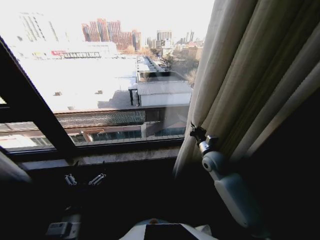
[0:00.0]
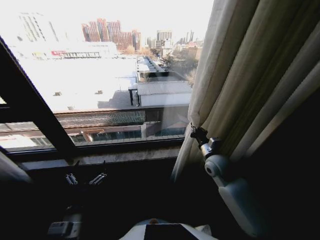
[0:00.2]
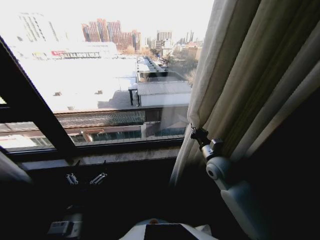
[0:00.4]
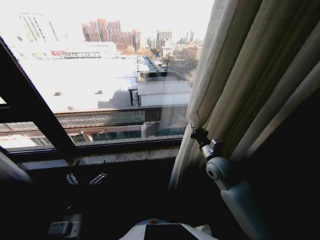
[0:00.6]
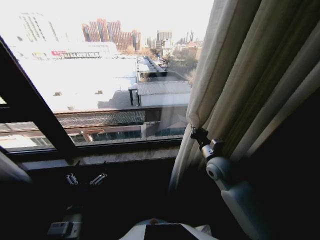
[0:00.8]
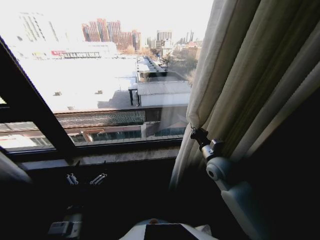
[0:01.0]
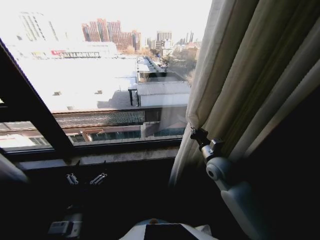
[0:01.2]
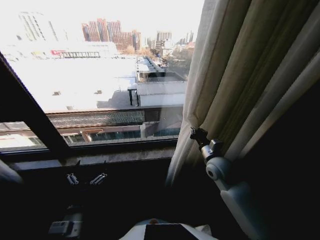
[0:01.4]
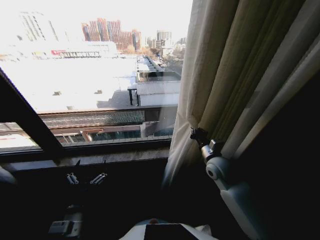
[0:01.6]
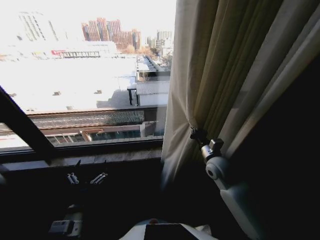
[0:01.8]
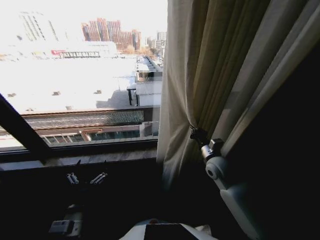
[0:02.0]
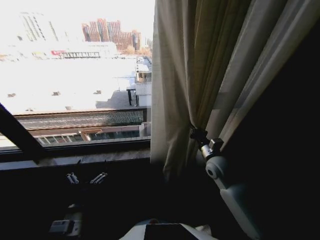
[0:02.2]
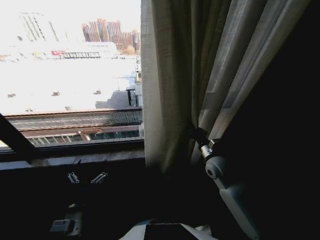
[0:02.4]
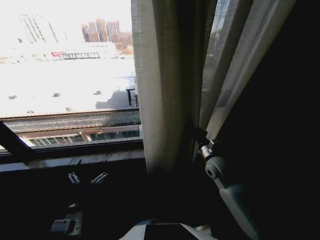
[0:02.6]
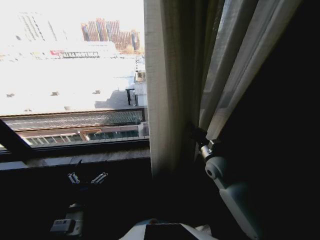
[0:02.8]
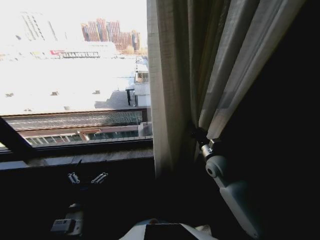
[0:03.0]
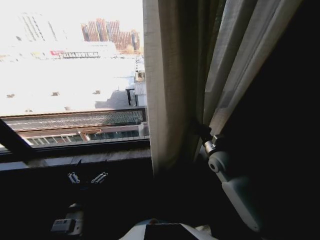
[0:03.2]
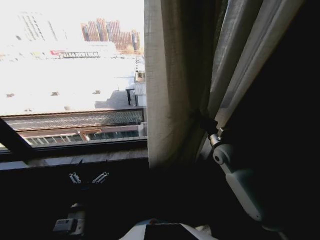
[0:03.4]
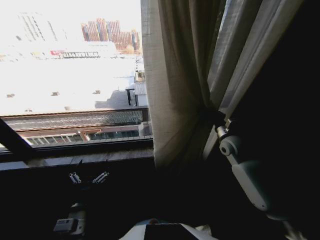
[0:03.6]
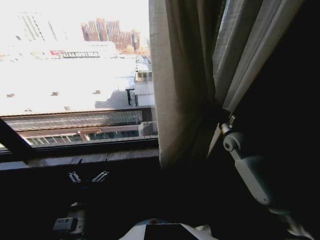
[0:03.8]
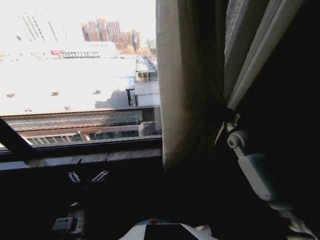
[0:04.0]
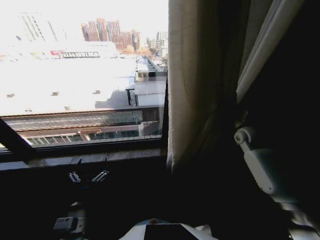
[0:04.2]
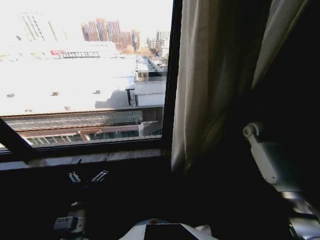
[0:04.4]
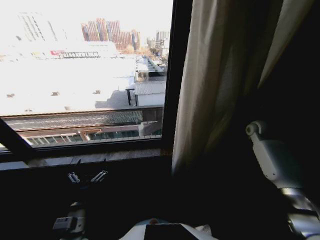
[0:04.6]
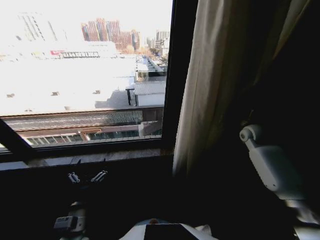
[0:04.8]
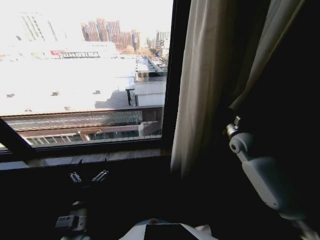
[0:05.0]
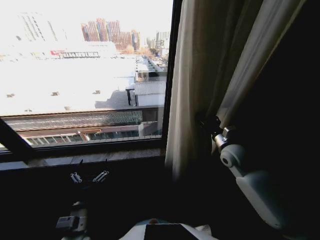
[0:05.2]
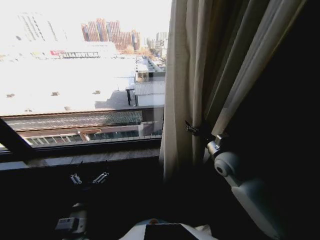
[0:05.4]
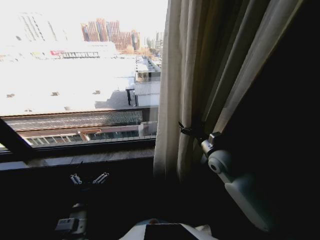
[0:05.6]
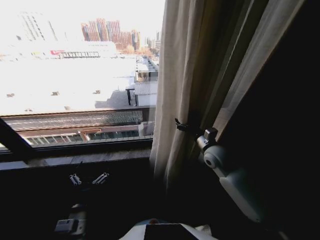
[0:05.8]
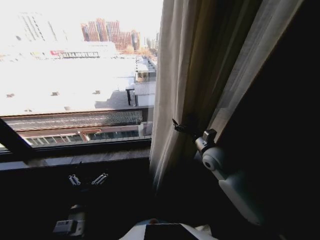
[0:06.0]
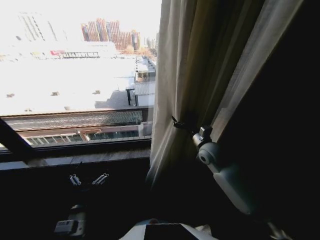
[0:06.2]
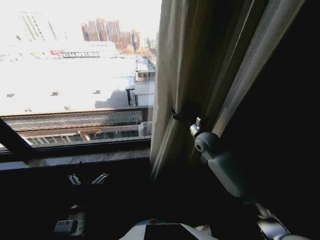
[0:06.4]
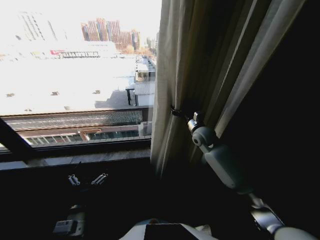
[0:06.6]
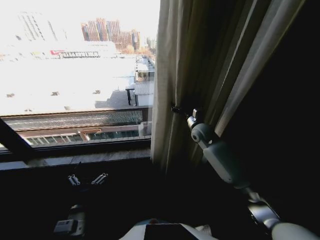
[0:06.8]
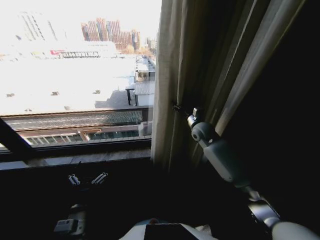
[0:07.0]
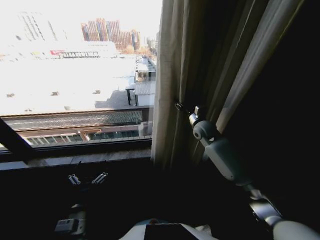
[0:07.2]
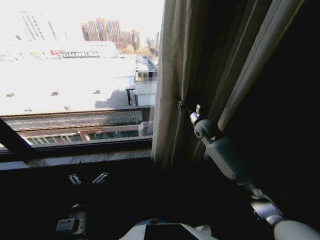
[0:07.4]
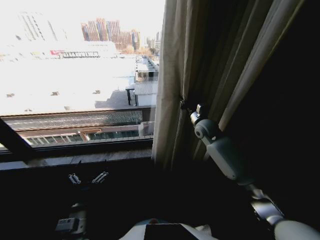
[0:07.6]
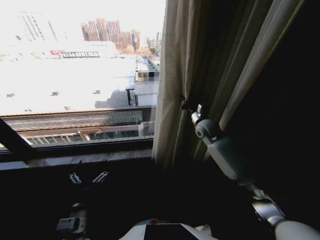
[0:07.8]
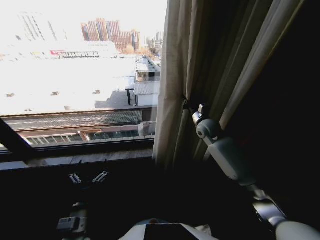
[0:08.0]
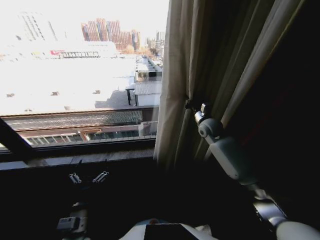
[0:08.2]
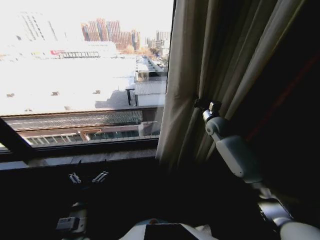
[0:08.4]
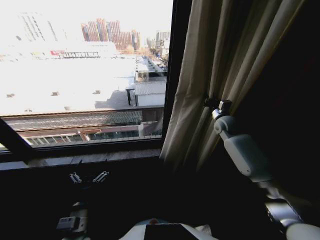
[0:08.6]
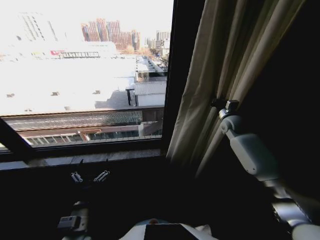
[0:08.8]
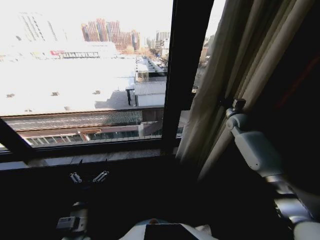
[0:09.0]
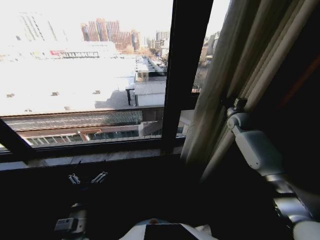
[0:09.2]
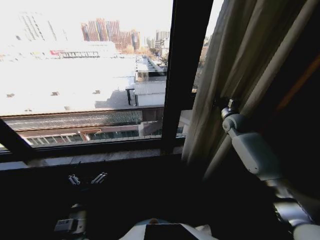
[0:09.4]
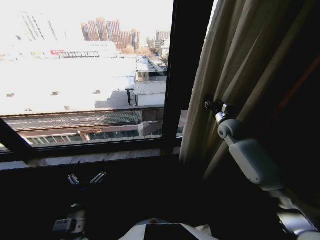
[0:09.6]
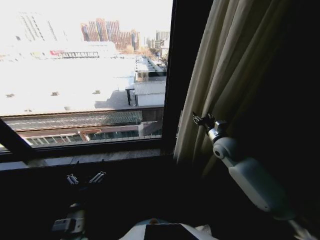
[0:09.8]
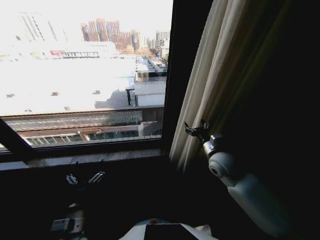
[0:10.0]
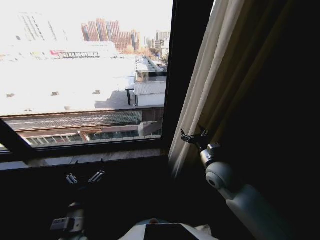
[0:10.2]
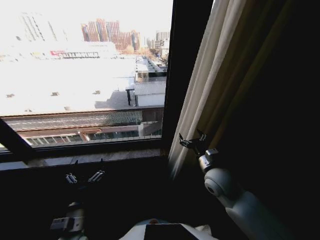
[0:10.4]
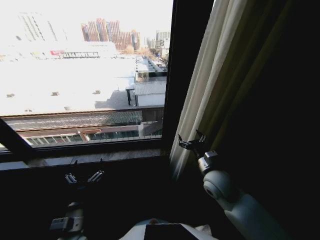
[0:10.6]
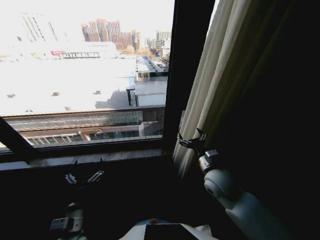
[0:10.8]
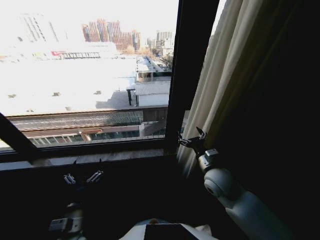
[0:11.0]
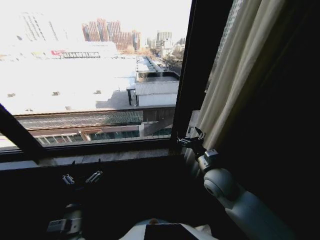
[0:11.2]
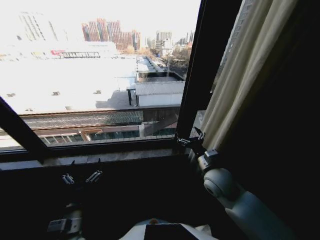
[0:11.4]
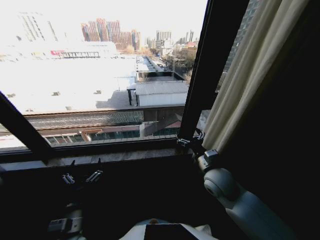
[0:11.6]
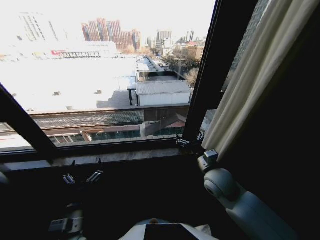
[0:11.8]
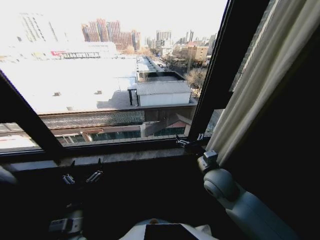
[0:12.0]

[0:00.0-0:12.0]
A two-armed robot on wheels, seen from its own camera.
Task of the whole recording: Open the curtains by pulling them apart, changing their state from closed to fully open.
0:03.0 to 0:04.4: The right gripper travels to the right and forward by roughly 25 cm.
0:04.4 to 0:06.0: The right gripper travels to the left and backward by about 25 cm, and opens.
0:06.0 to 0:07.6: The right gripper heads forward, covering about 15 cm, and closes its fingers.
0:07.6 to 0:09.0: The right gripper travels to the right by roughly 20 cm.
0:09.0 to 0:10.4: The right gripper moves backward and to the left, roughly 30 cm, and opens.

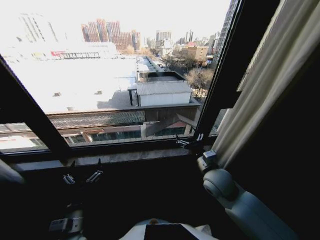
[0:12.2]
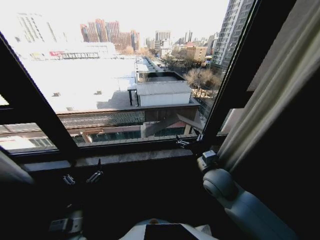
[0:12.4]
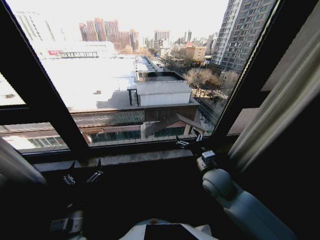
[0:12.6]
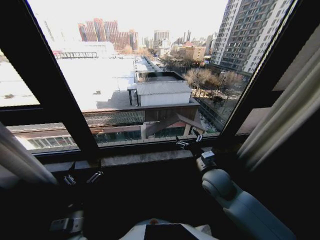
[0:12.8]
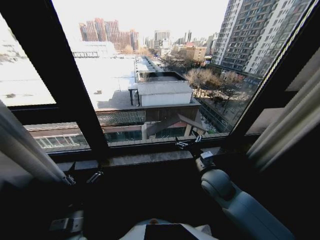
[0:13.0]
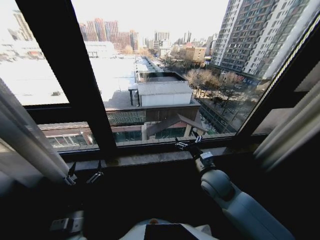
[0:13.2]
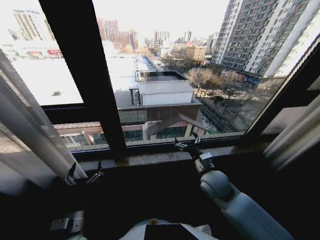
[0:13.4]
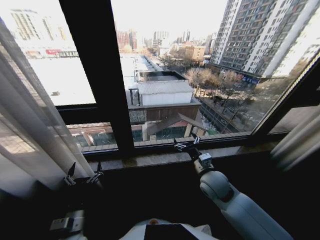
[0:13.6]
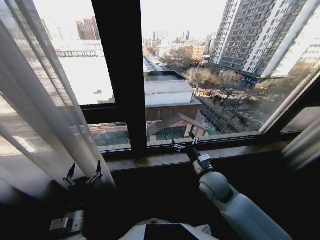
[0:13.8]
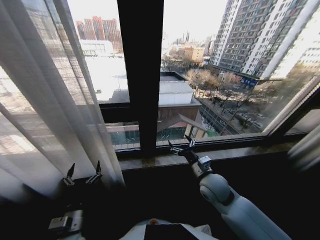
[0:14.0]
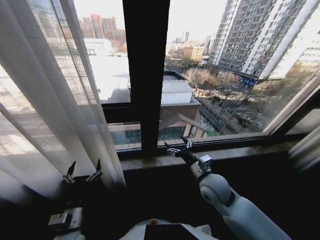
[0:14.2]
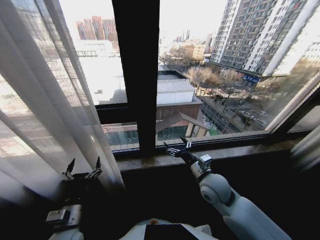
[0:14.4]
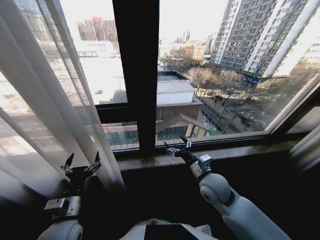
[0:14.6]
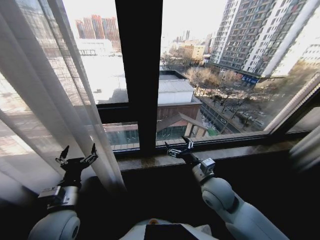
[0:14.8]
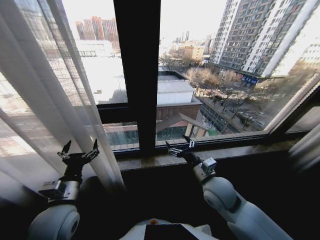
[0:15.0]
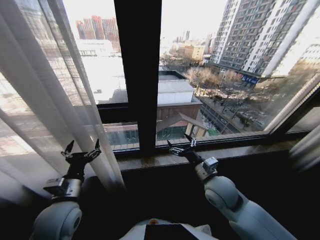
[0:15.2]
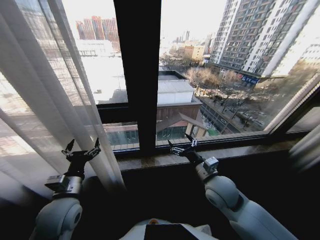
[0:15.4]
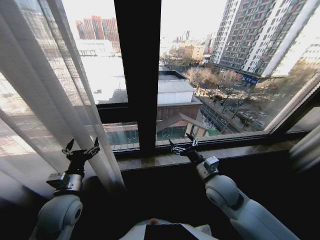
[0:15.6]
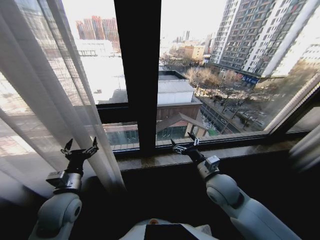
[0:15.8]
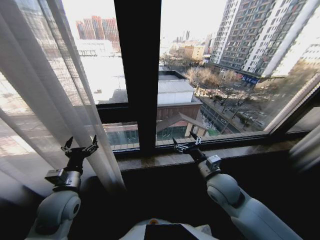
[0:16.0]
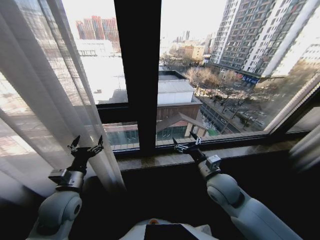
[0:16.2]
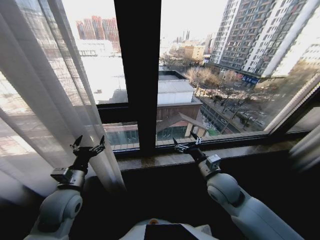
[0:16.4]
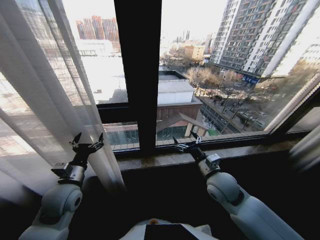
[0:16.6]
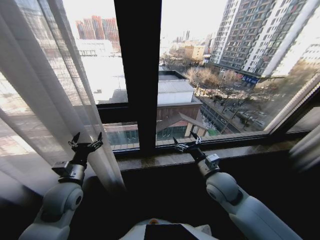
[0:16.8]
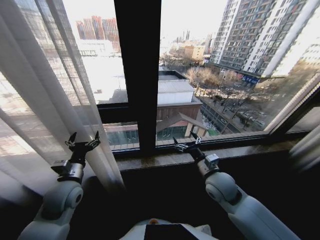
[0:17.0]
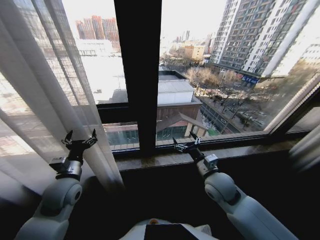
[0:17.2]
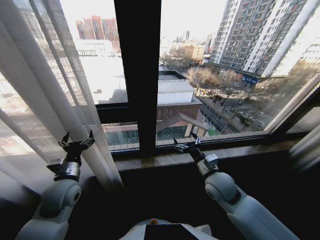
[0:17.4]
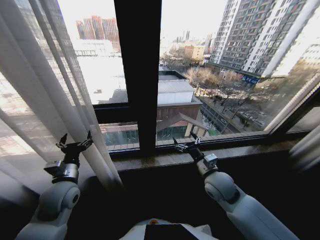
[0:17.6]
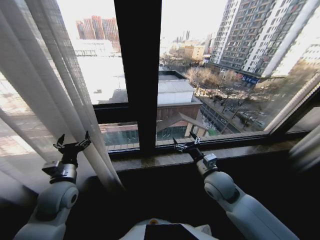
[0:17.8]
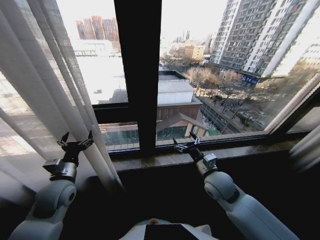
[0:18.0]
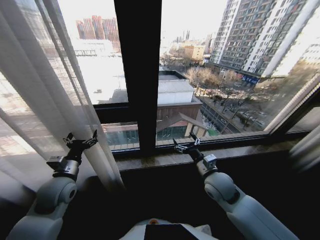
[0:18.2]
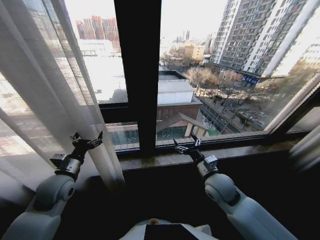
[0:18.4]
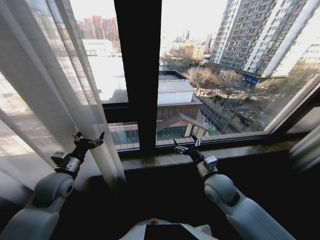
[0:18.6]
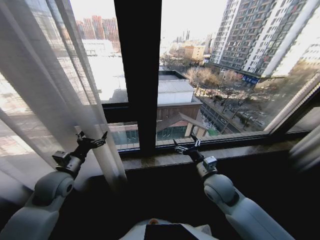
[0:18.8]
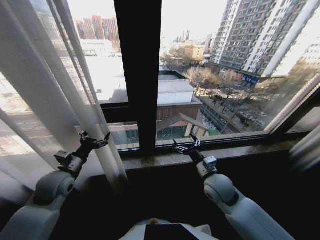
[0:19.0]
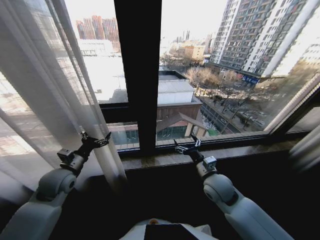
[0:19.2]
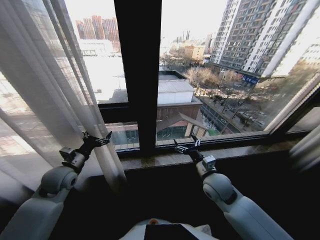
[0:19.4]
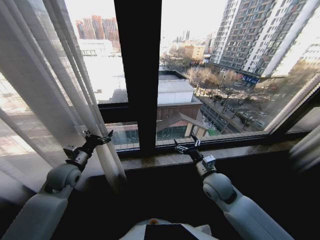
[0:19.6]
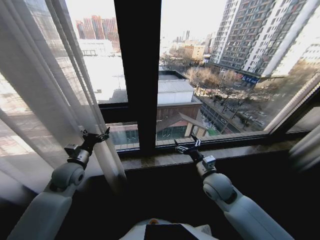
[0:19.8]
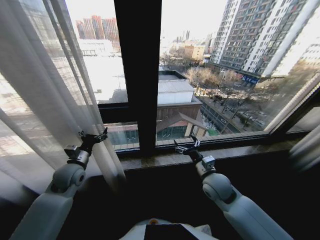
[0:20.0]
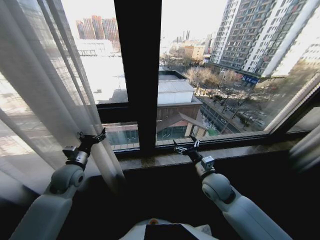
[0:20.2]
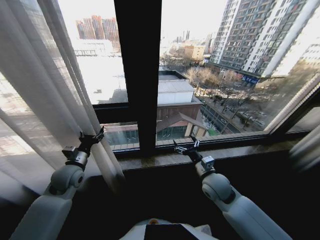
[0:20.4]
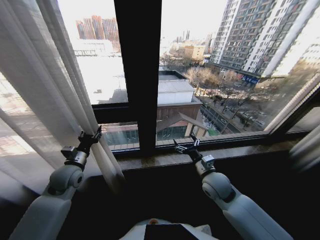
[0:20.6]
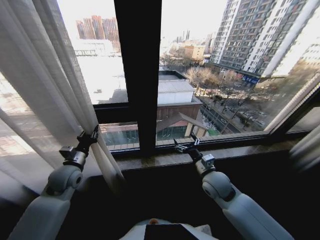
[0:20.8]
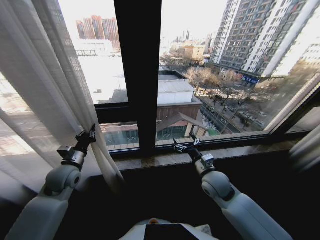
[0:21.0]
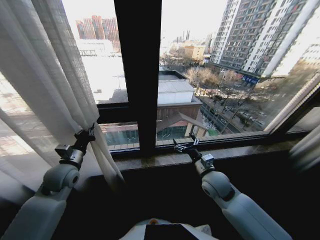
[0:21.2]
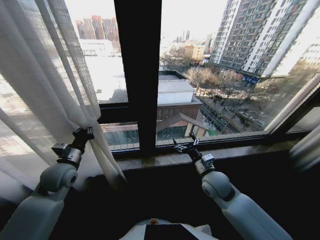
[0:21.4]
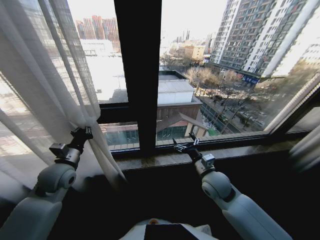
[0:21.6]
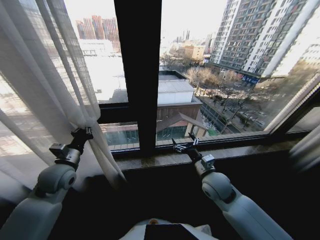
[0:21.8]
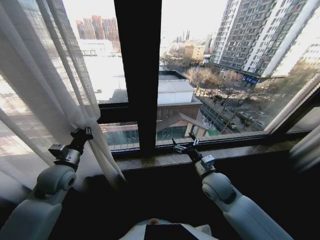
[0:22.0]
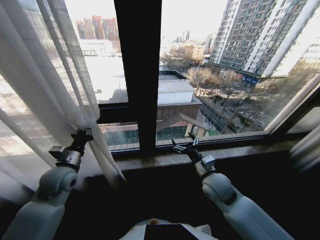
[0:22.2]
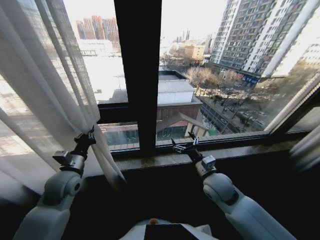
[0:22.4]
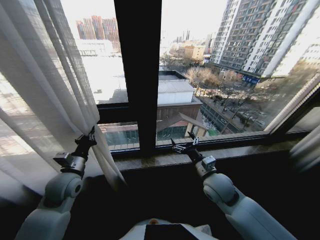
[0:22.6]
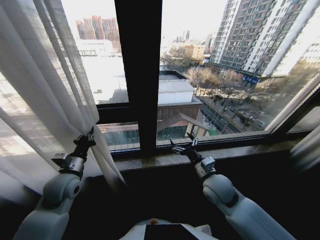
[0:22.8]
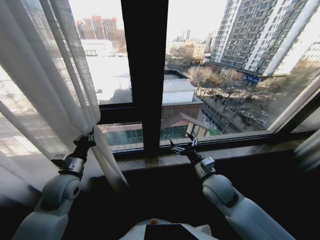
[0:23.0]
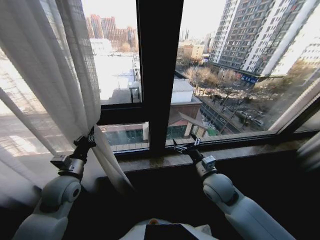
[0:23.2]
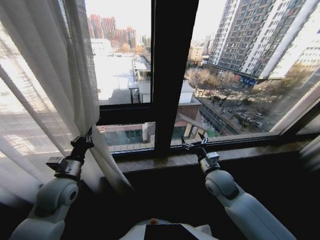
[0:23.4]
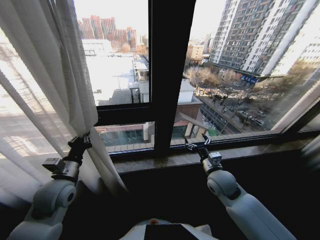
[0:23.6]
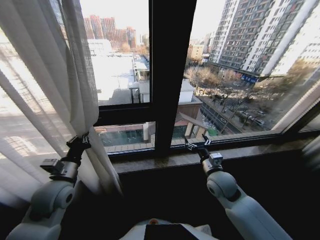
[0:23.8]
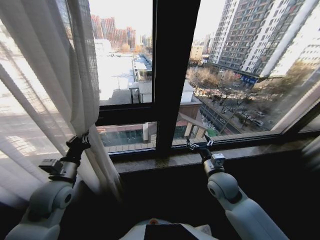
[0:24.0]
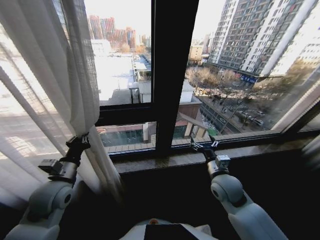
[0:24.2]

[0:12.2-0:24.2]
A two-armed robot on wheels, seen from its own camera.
Task of the whole recording: Open the curtains by pulling them apart, changing their state from closed to fully open.
0:13.8 to 0:15.2: The left gripper moves upward and forward, roughly 10 cm.
0:15.2 to 0:16.6: The left gripper shifts approximately 5 cm forward.
0:16.6 to 0:18.2: The grippers stay close to where they were, moving slightly.
0:18.2 to 0:19.8: The left gripper heads forward, covering roughly 5 cm.
0:19.8 to 0:21.2: The left gripper closes.
0:21.2 to 0:22.6: The grippers move only a little.
